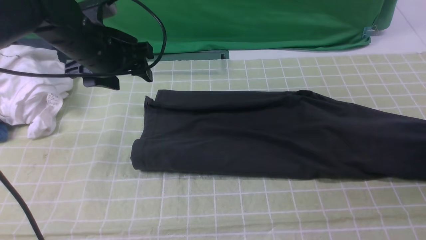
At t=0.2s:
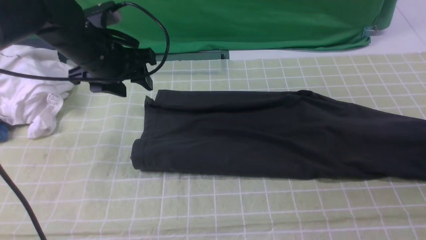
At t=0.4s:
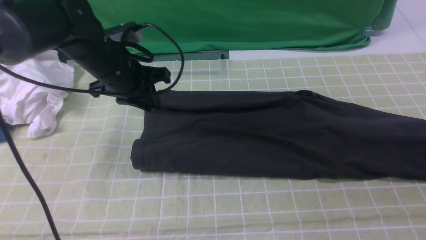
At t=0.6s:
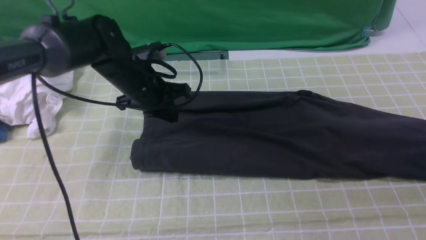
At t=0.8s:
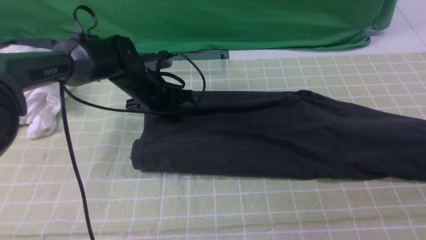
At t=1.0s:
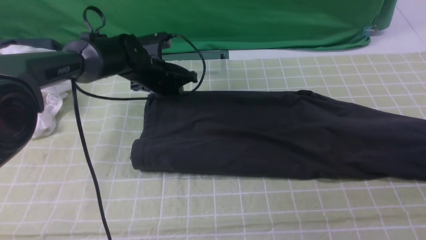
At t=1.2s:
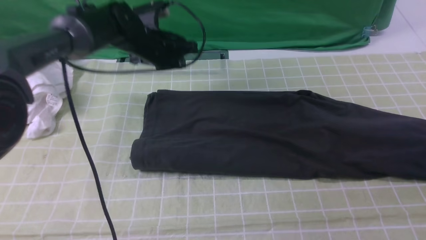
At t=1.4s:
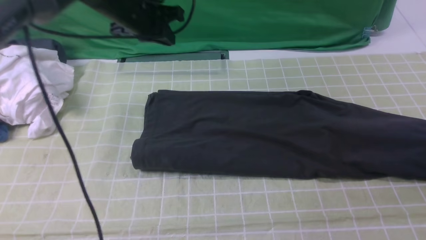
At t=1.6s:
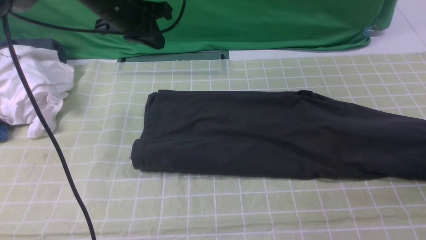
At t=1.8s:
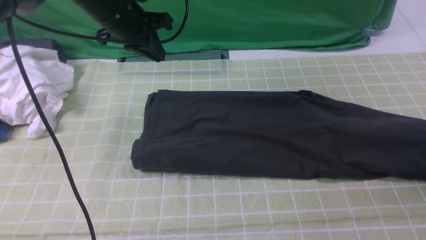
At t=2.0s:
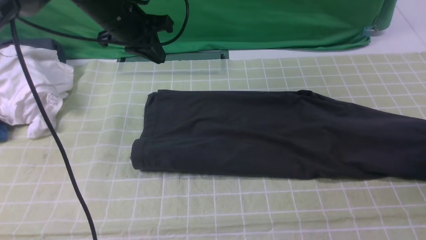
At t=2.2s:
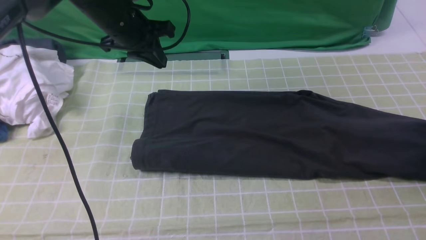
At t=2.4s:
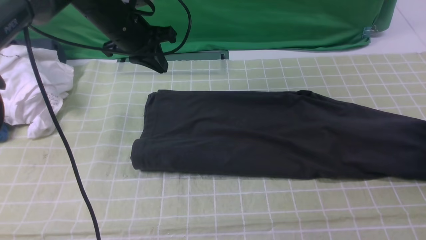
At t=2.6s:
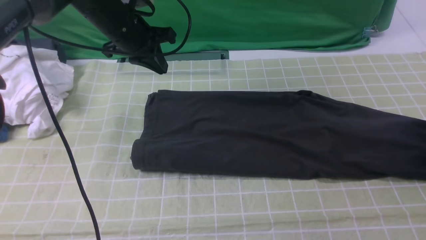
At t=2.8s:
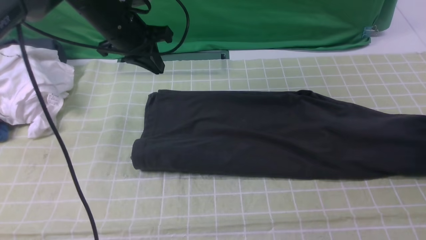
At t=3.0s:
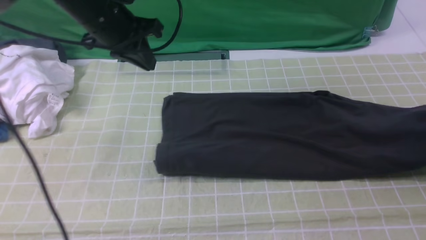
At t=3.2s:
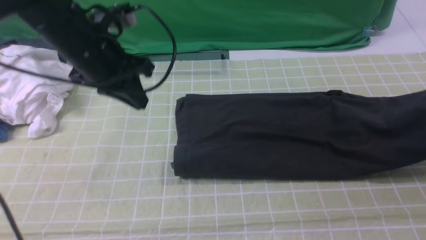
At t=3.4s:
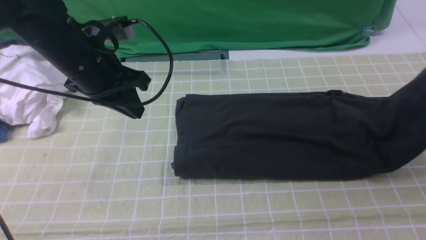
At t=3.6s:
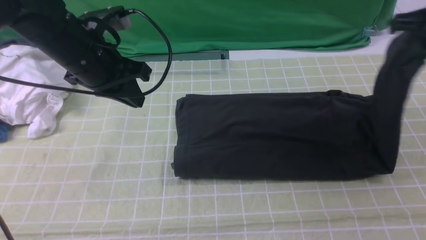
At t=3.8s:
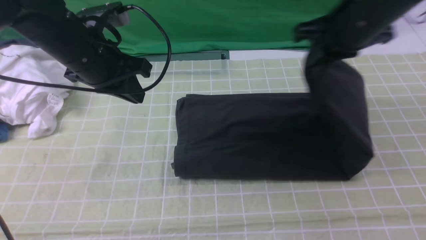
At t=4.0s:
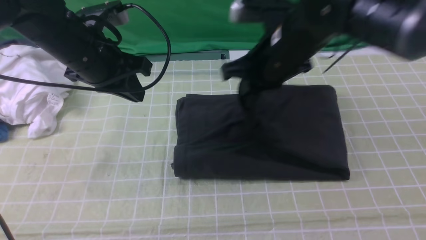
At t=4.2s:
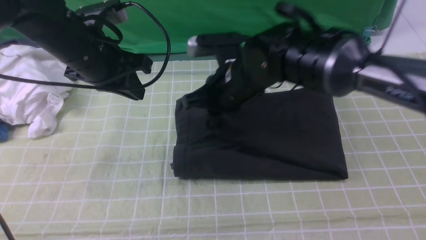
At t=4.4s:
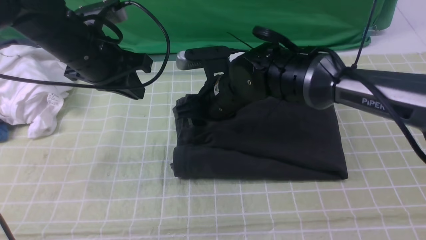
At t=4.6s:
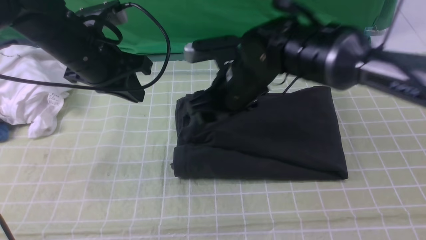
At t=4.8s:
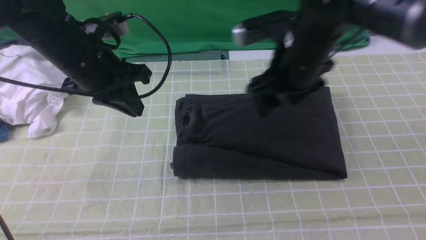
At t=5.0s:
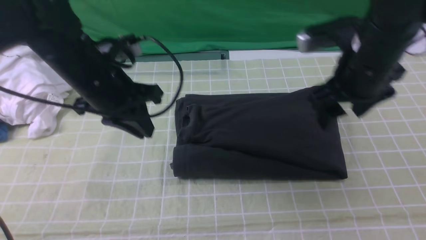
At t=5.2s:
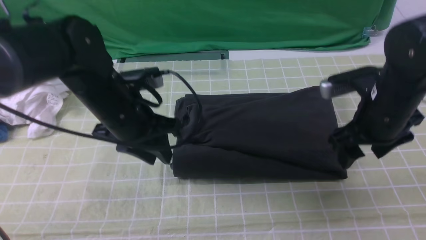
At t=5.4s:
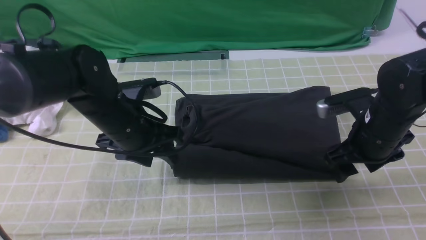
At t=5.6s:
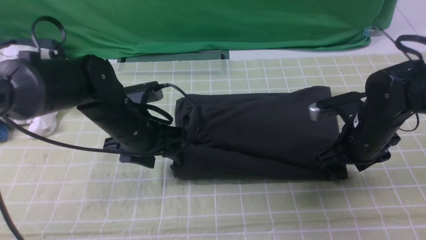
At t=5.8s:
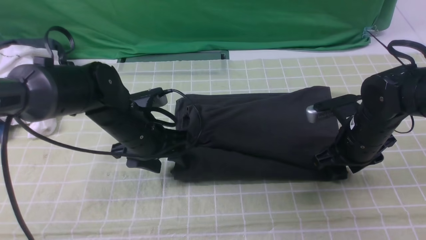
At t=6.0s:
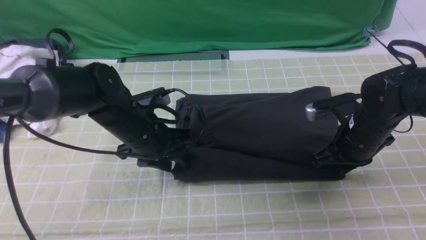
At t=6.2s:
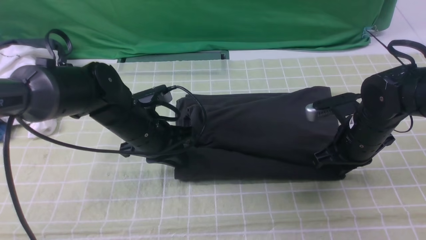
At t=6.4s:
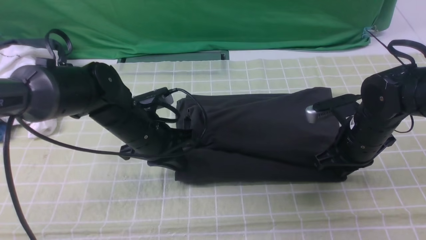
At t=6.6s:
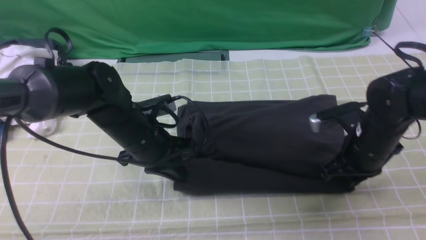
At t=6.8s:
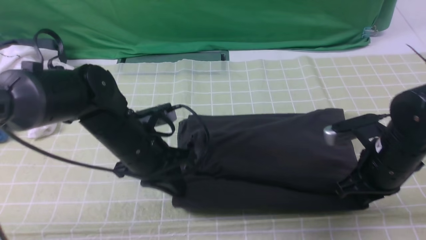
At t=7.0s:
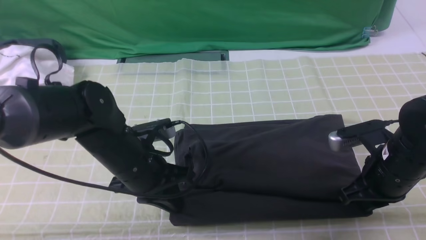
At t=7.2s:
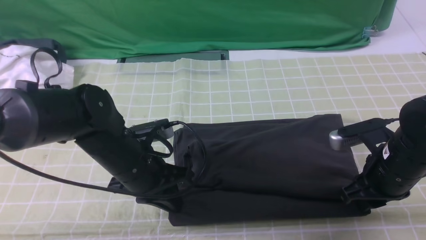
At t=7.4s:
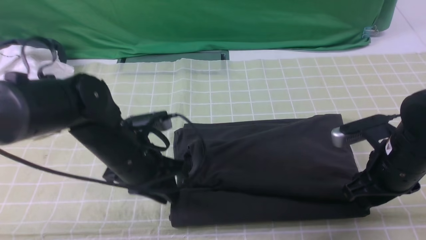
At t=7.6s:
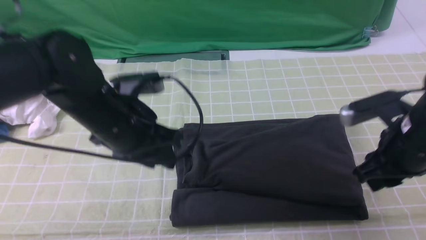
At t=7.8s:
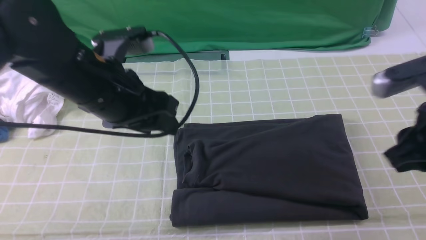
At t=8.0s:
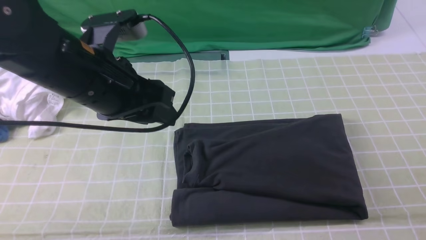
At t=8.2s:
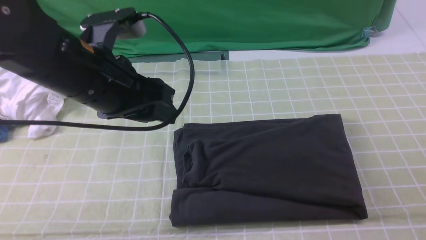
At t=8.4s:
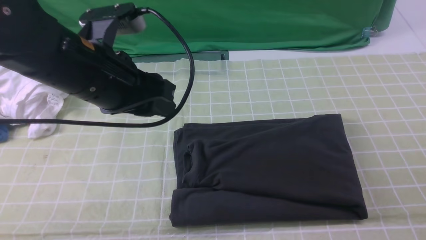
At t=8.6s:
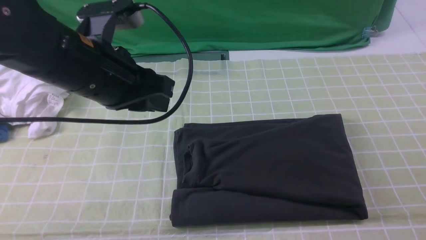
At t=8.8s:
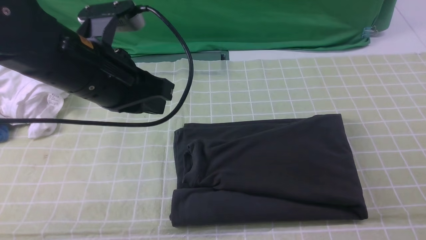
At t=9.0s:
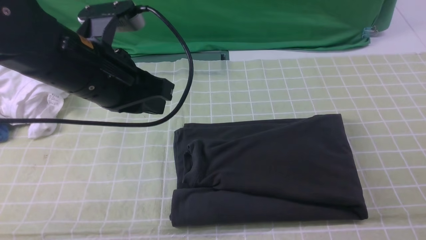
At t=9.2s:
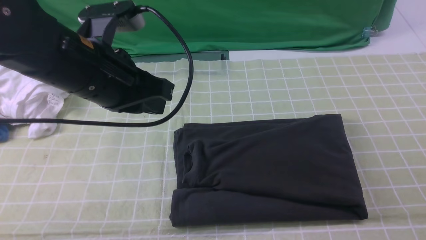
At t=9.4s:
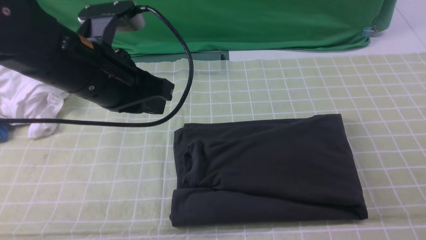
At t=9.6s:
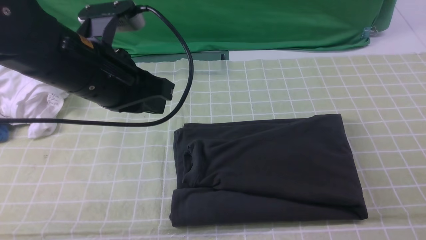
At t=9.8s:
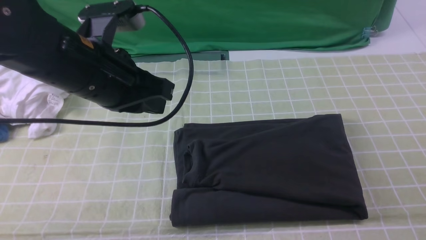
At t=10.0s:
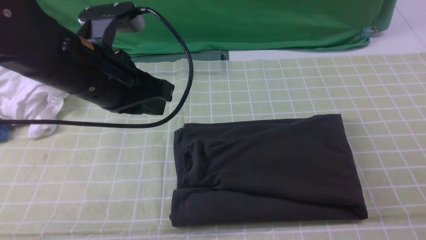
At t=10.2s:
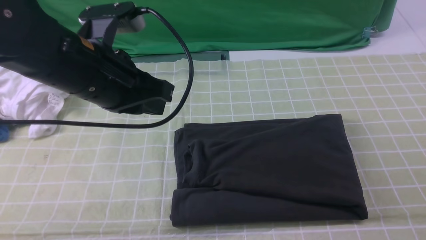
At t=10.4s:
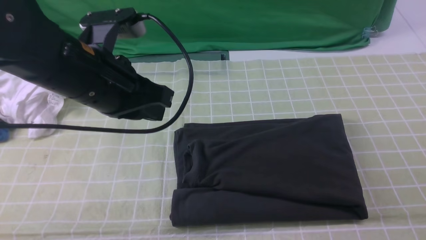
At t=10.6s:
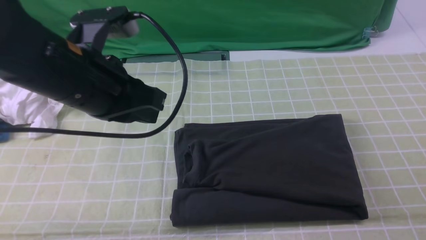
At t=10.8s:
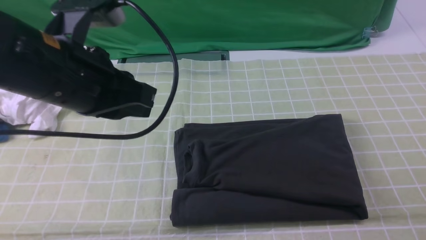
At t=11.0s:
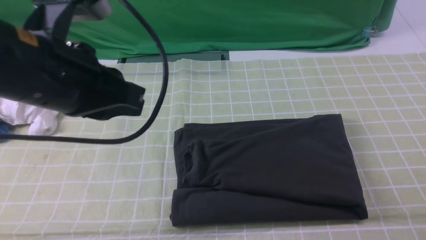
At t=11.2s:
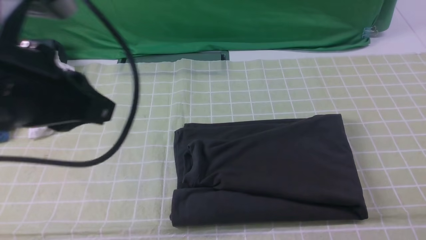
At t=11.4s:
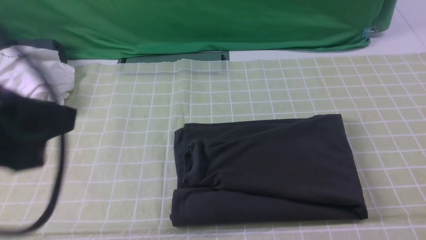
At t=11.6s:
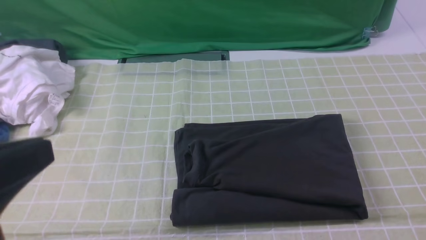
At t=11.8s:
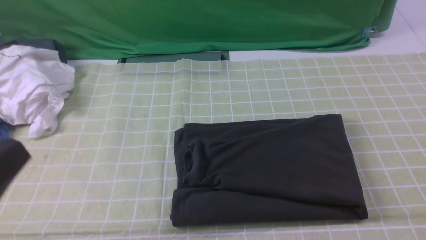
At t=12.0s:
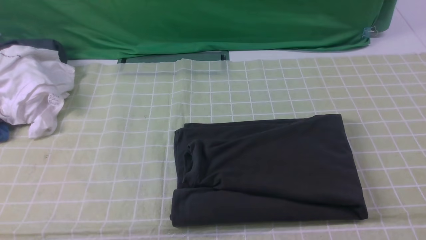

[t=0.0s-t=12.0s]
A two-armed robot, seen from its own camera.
Step, t=0.0s to t=2.6s: use the right arm to clamp the right edge of the fabric.
Step, t=3.0s to t=4.4s: use the right arm to drag the right edge of the fabric to the left and folds it over the left edge.
t=0.0s to t=1.6s: The left gripper goes approximately 5 cm forward, moves approximately 10 cm downward and comes back, and closes its fingers, while the right gripper closes, then reopens.
t=1.6s to t=3.0s: The left gripper moves backward, some 5 cm. Meanwhile the right gripper travels downward and back again, approximately 10 cm each way, and opens and closes again.
t=3.0s to t=4.4s: The right gripper shifts roughly 40 cm to the left, and opens.
t=4.4s to t=6.0s: The right gripper travels to the right by about 20 cm, and closes its fingers, while the left gripper travels downward and to the right by approximately 15 cm, and opens its fingers.
t=6.0s to t=7.6s: The left gripper travels upward by roughly 10 cm, and closes and opens again, while the right gripper is displaced upward and backward by approximately 10 cm.
t=7.6s to t=9.0s: The left gripper heads upward, covering some 5 cm, and closes; the right gripper shifts some 20 cm backward, and closes up.
t=9.0s to t=10.4s: The right gripper travels downward by approximately 10 cm.
t=10.4s to t=12.0s: The left gripper shifts roughly 20 cm backward.

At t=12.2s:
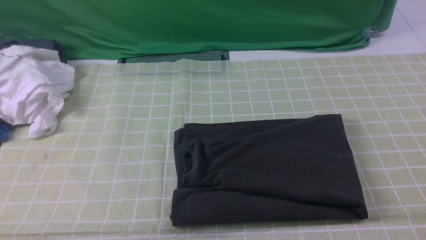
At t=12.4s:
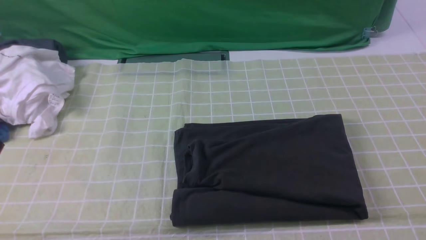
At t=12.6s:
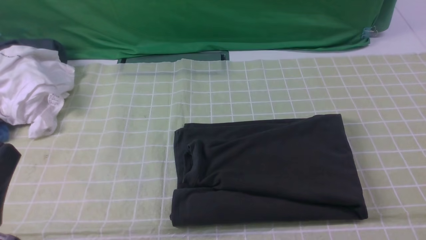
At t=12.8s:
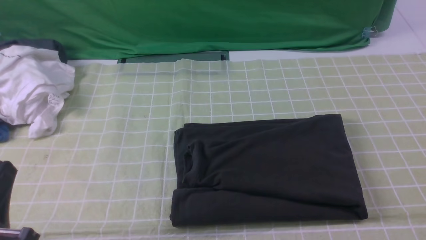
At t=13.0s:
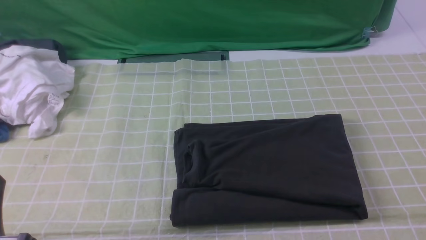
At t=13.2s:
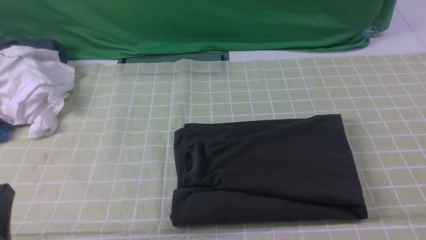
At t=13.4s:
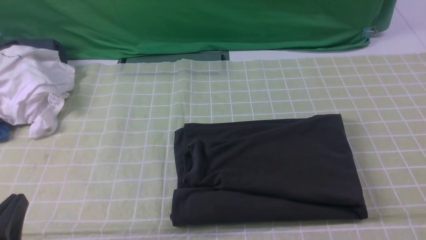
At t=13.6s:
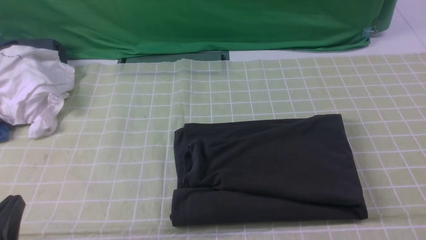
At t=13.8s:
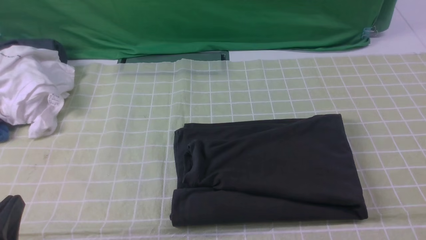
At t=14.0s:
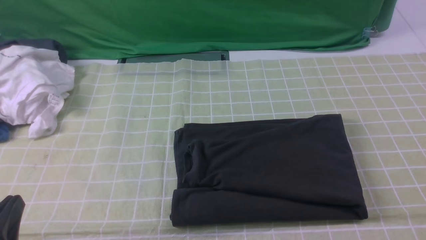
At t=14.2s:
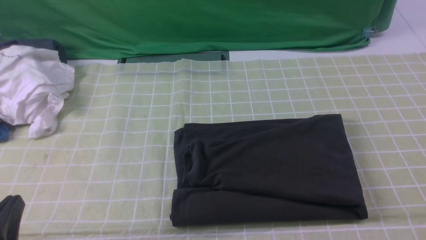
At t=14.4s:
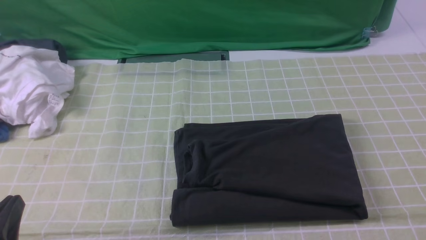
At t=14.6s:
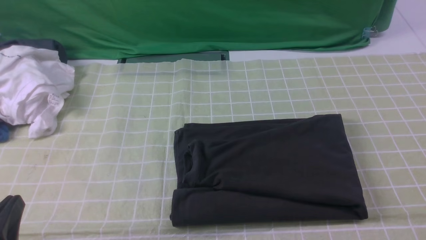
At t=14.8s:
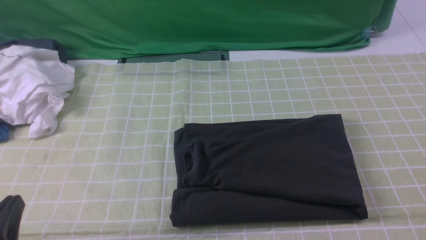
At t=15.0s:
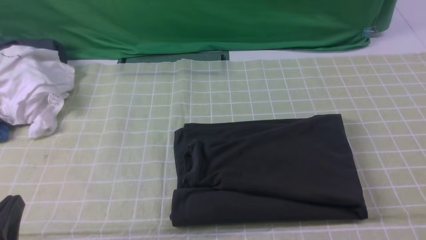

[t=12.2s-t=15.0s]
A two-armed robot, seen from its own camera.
t=12.2s to t=13.6s: The left gripper heads downward, covering roughly 10 cm.
t=13.6s to t=15.0s: Both grippers stay about where they are.
